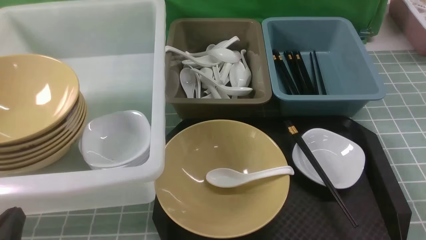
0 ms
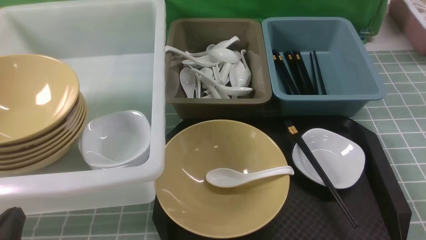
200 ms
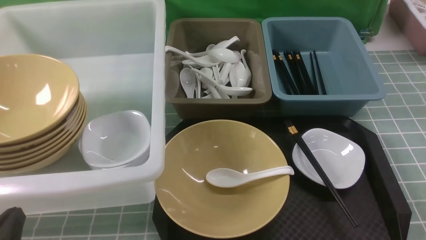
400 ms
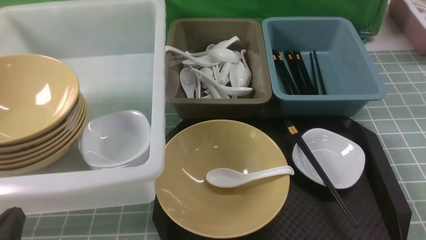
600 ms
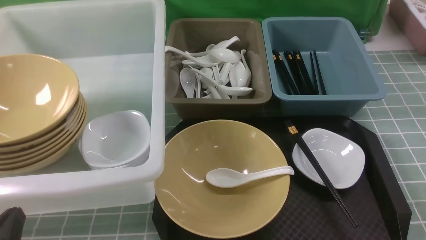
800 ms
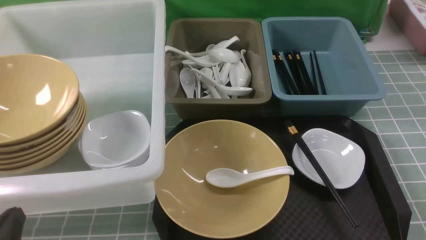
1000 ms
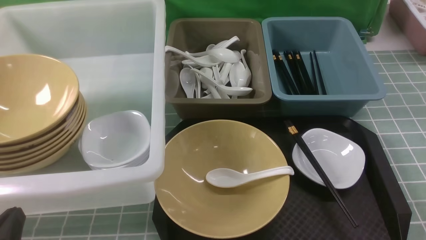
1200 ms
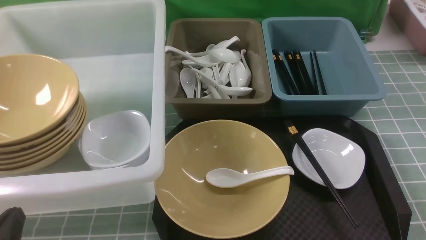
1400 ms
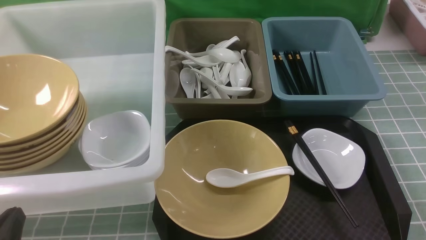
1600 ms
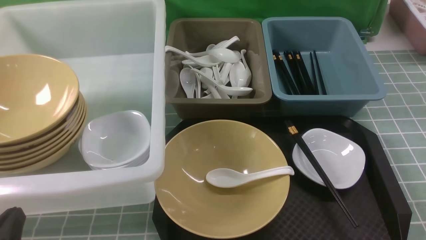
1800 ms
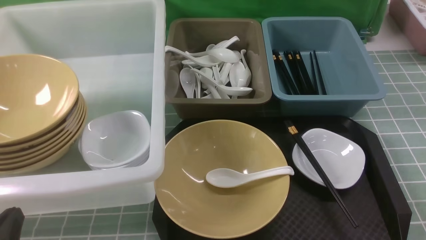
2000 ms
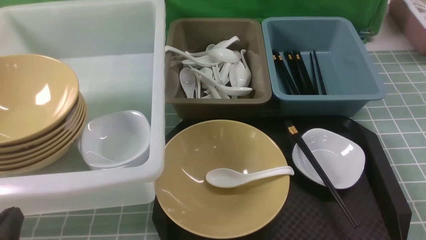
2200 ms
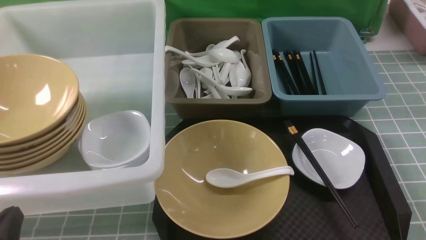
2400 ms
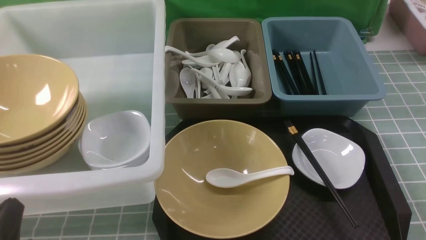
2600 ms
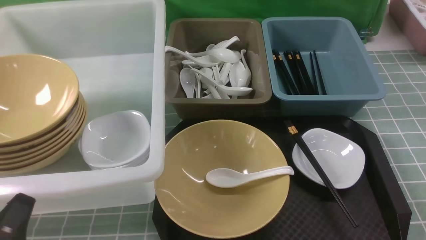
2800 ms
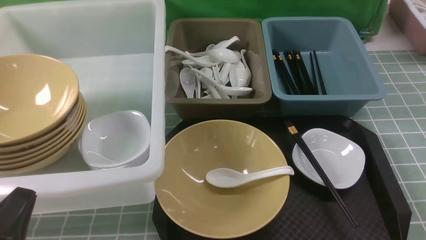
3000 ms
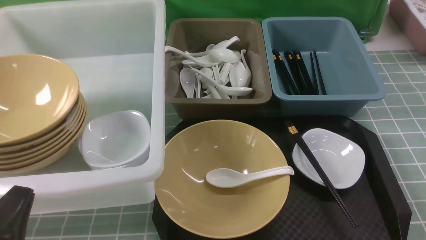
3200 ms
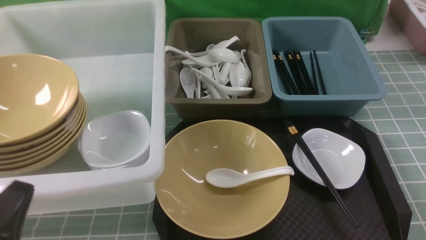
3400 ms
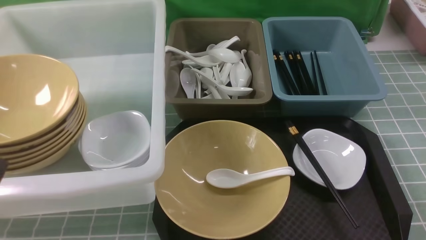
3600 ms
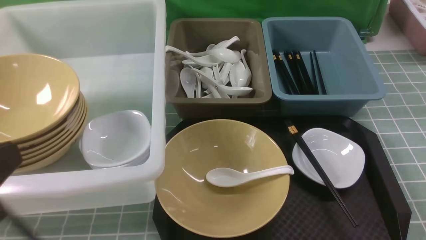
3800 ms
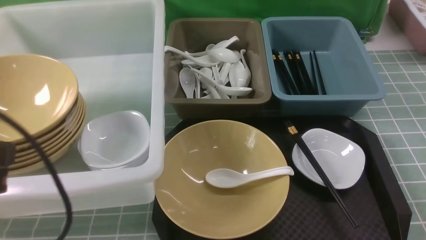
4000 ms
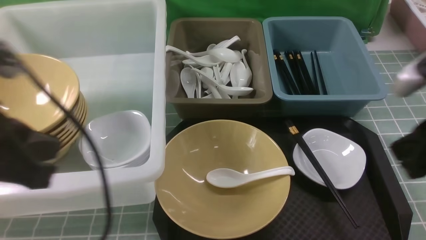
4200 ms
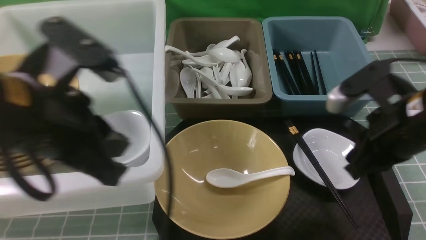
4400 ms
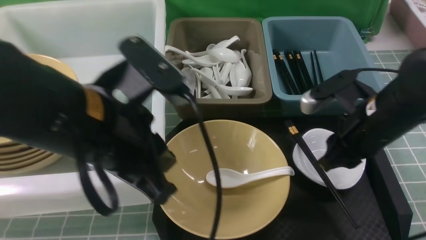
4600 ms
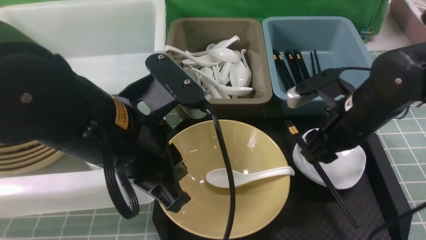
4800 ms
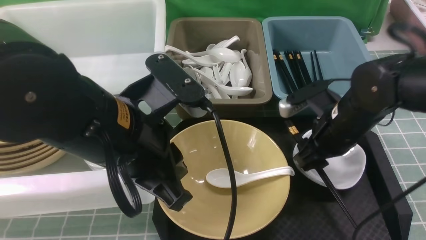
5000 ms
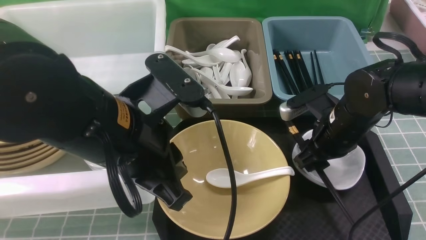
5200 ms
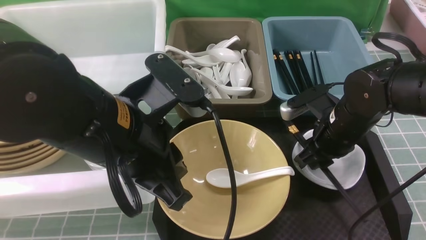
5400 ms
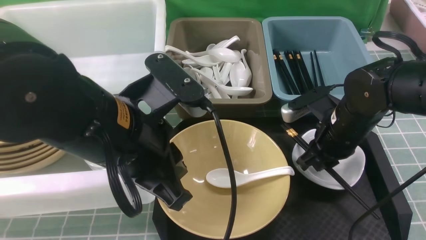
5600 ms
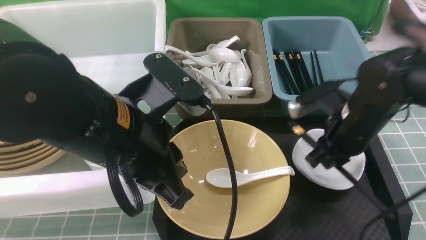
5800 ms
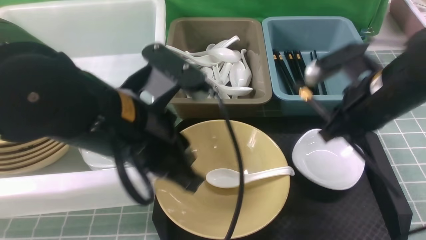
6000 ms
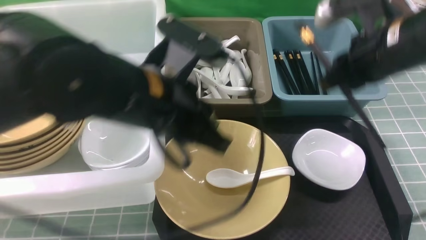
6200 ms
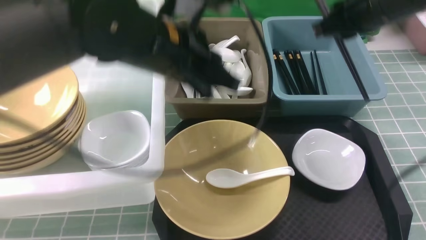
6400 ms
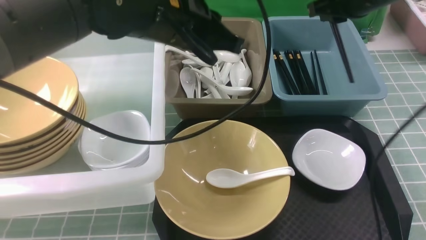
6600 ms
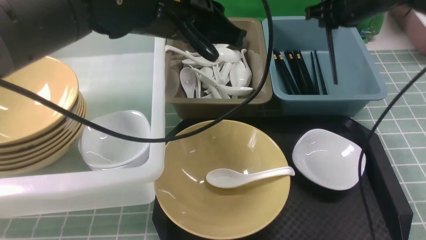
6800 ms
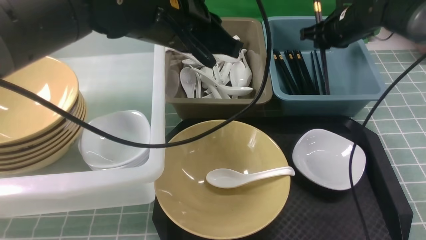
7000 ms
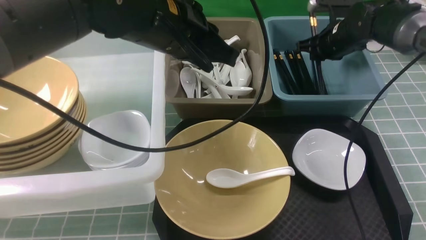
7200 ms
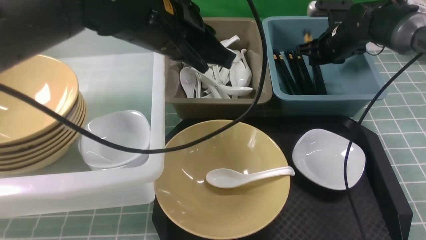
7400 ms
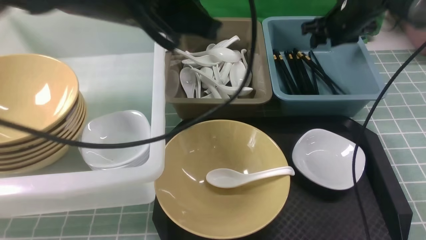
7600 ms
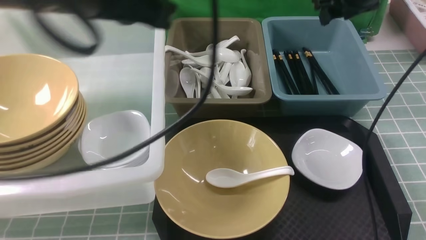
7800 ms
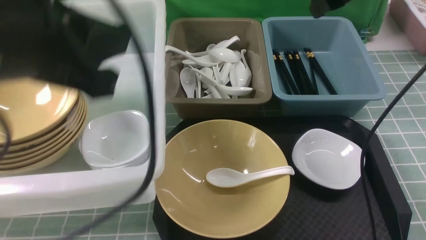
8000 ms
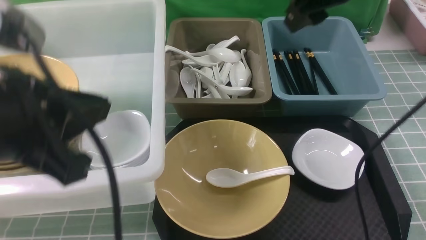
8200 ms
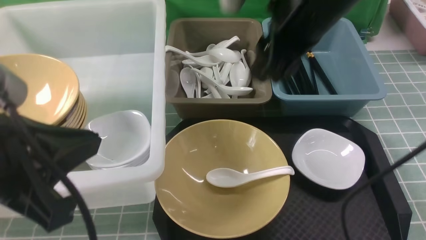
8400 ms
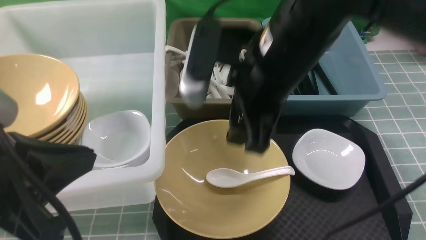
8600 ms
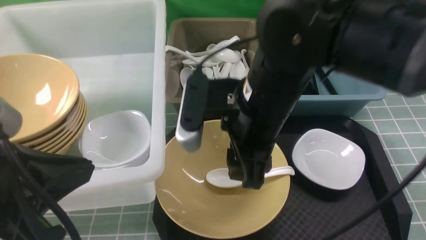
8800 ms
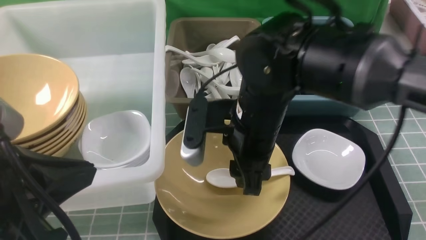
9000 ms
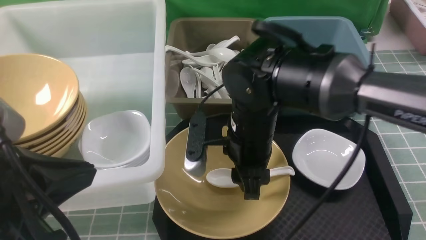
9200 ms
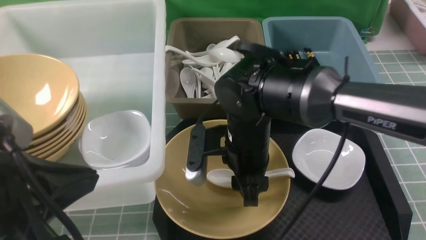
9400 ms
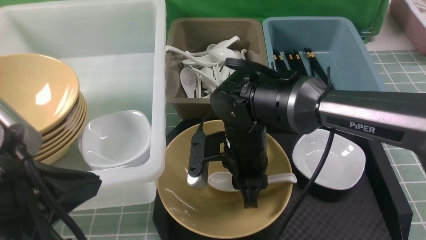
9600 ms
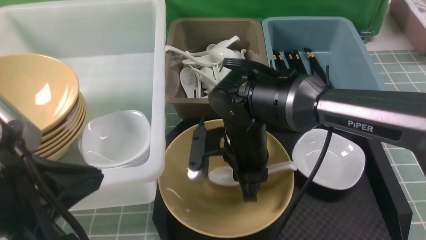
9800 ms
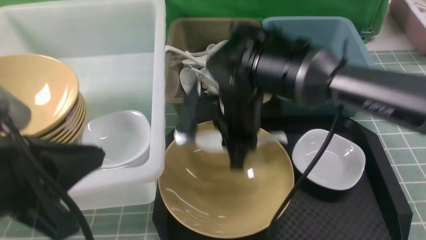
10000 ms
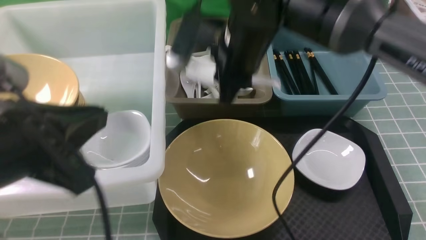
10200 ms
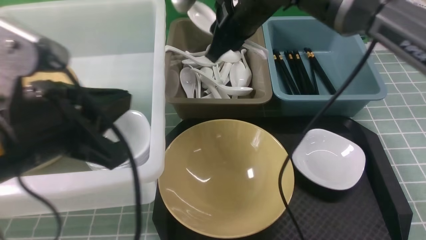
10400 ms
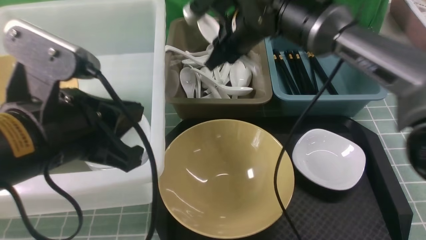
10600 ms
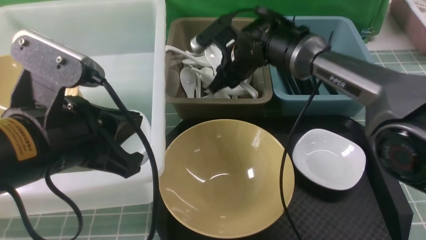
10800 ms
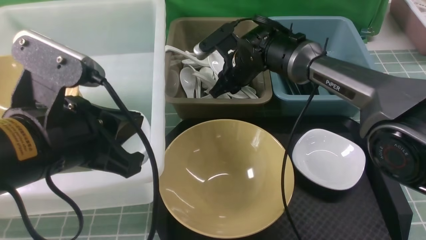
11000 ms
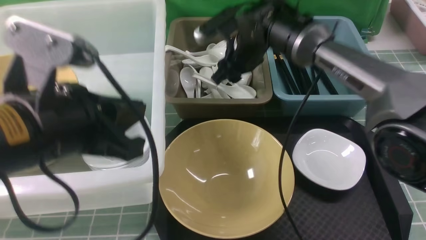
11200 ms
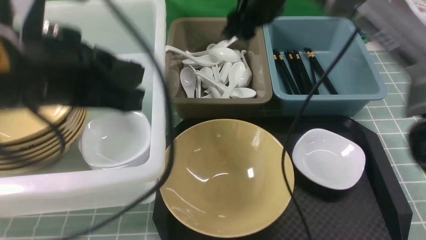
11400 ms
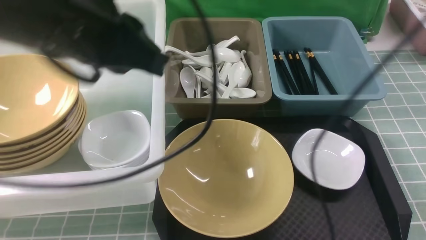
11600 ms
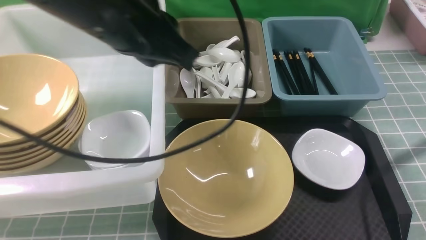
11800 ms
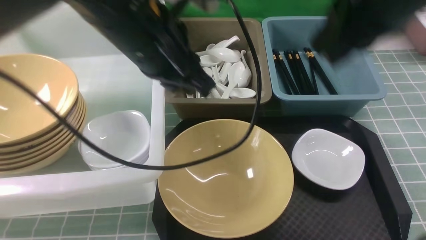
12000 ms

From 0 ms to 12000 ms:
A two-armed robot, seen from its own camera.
Task of the whole recording: on blue table put chopsticks spoon bowls plates into blue grey white boxes.
Step, from 0 ms to 5800 ms: use the right arm to grab the chopsticks.
Step, from 6000 ms to 7400 ms: use the right arm to put the chopsticks into the small storage box on the right.
Step, from 7600 ms to 9800 ms: use the right arm to grab the soup spoon in the middle.
Step, from 10000 ms to 11200 ms: use the right arm to put the soup spoon into the small storage box in the middle.
From 3000 ms to 4400 ms: The left gripper goes roughly 20 cm upward, forward and to the right, while the right gripper is displaced forward, upward and to the left by about 20 cm, and closes its fingers.
From 4400 ms to 6000 ms: The right gripper is displaced forward by approximately 10 cm, and opens, then closes once more; the left gripper travels to the right by roughly 10 cm.
From 6000 ms to 7600 ms: The left gripper shifts about 10 cm forward and upward. Meanwhile the right gripper shifts some 20 cm forward, and opens.
From 7600 ms to 9000 ms: The two grippers go roughly 25 cm backward and to the left.
From 9000 ms to 10400 ms: The right gripper moves forward, approximately 10 cm, reaches some 10 cm downward, then returns, and closes its fingers. The left gripper moves approximately 5 cm.
From 10400 ms to 12000 ms: The right gripper heads upward, backward and to the right, covering approximately 20 cm, and opens and closes again. The left gripper heads forward and to the right, covering some 15 cm.

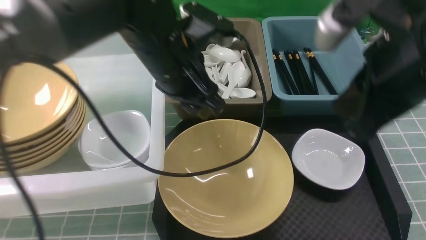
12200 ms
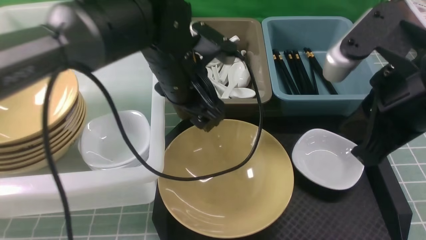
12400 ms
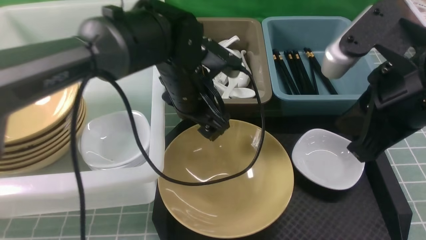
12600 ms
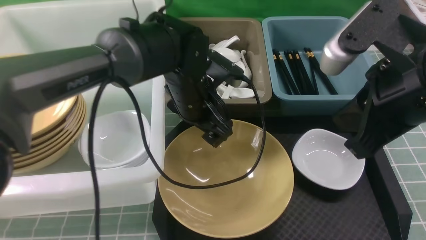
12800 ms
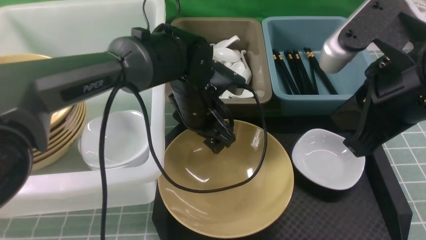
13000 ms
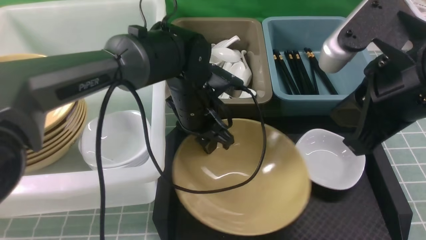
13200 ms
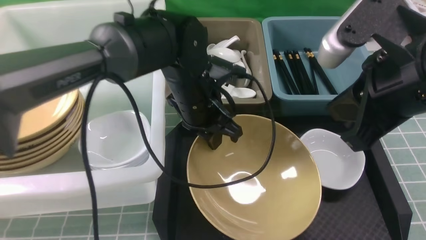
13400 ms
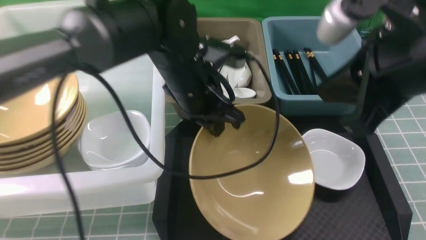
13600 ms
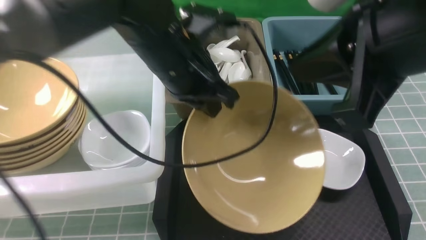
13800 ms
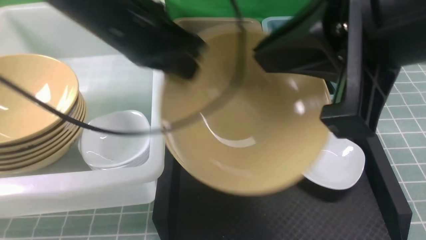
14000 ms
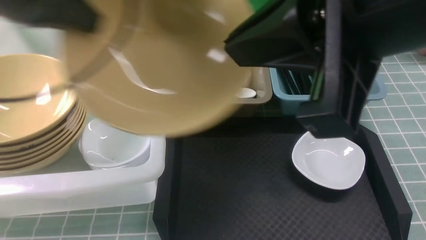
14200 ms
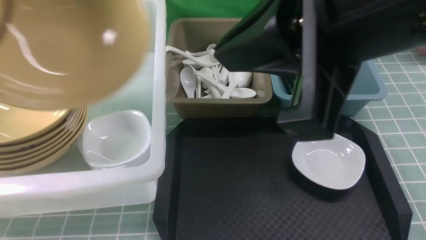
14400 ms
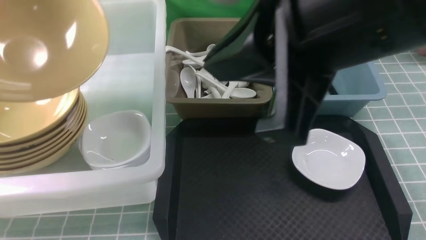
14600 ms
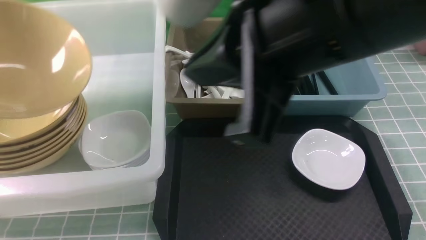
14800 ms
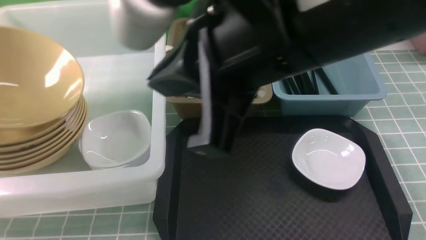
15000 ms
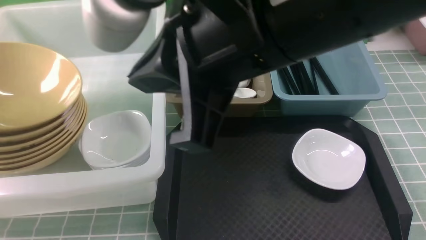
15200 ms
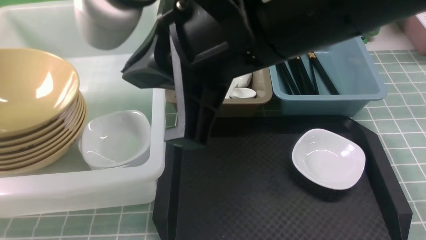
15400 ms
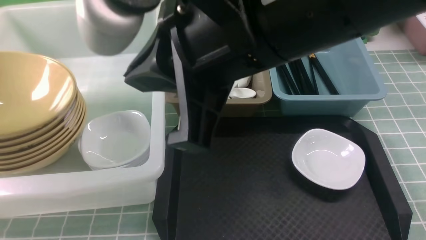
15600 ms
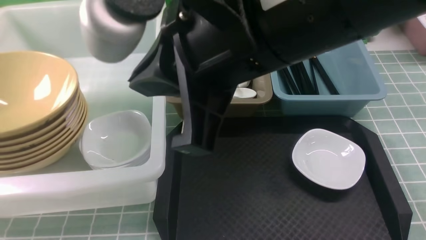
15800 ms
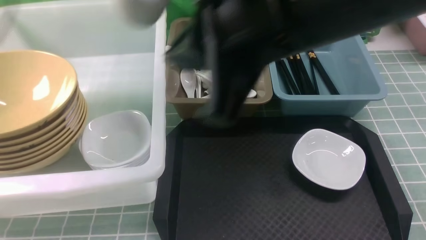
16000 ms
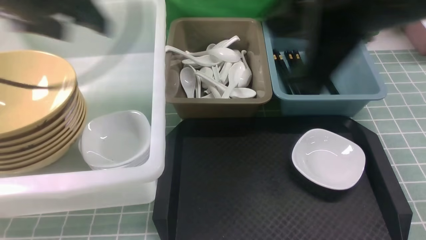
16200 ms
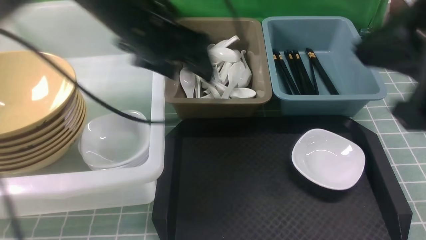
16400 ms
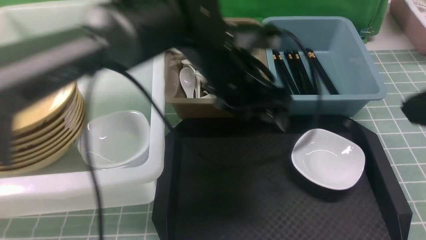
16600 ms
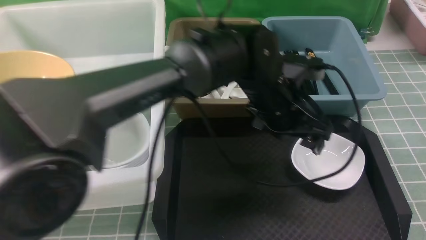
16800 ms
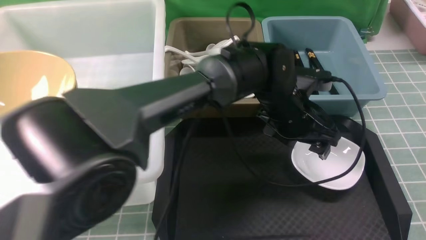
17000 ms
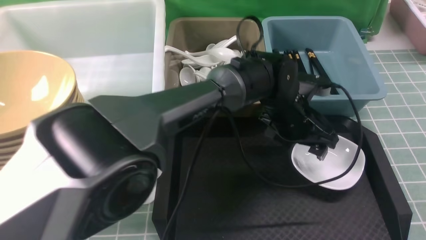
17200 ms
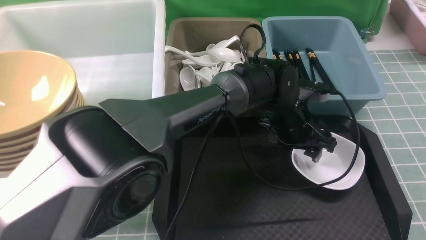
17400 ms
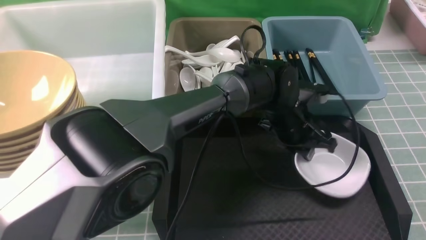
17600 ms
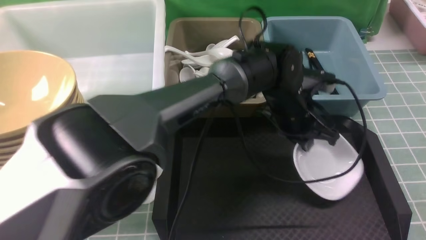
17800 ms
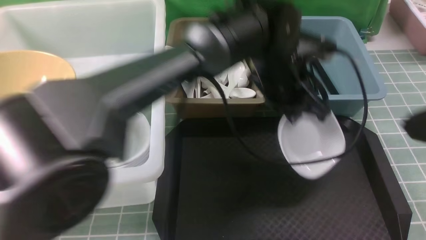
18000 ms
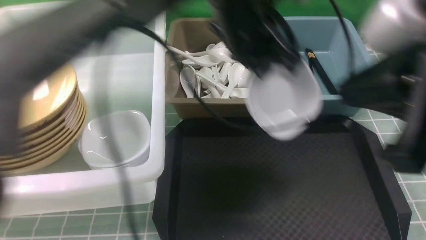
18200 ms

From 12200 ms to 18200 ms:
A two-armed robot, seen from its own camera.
Task of the whole recording: on blue table put chopsticks spoon bowls plates into blue grey white boxes.
Step, from 12200 ms to 13600 ms: use the left arm to grab the yellow noodle bowl on the left.
Step, from 13800 ms to 15800 ms: use the left arm to put the noodle bowl into the large storage box on the left.
Step, from 16000 ms to 17800 ms: use the left arm to grab the plate.
From 12200 ms to 13800 ms: The left gripper travels downward and back again, some 10 cm each way, and closes.
From 13800 ms to 15200 ms: The left gripper is displaced to the left by some 35 cm, while the right gripper travels to the left by approximately 10 cm.
From 15200 ms to 16600 ms: The right gripper heads to the right, covering roughly 15 cm; the left gripper travels to the right by approximately 40 cm, and opens up.
From 16600 ms to 18200 ms: The left gripper moves to the right, roughly 5 cm, reaches about 15 cm downward, then returns, and closes up, while the right gripper travels to the right and back again, approximately 5 cm each way.
